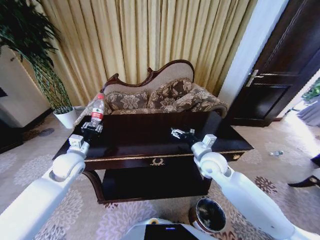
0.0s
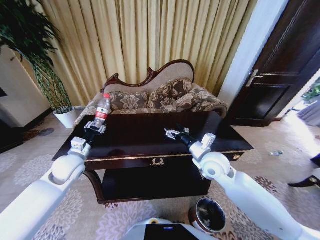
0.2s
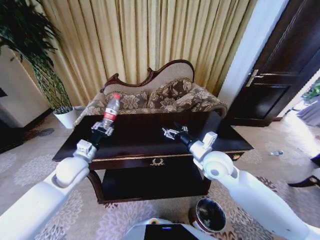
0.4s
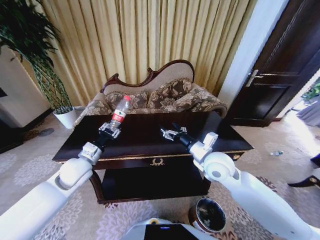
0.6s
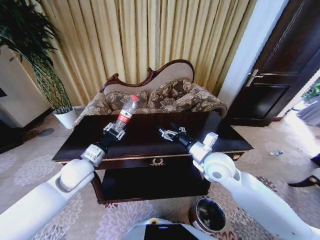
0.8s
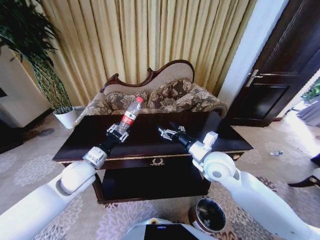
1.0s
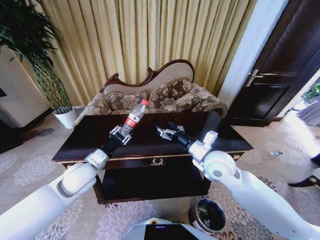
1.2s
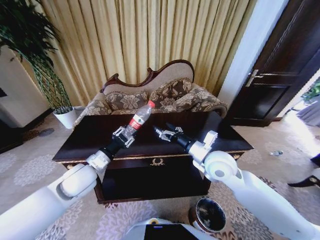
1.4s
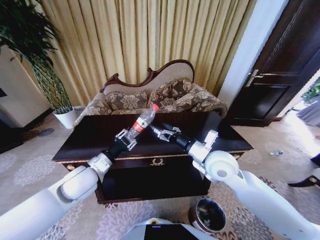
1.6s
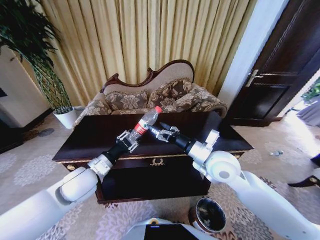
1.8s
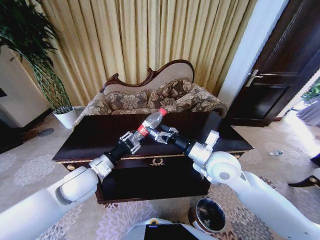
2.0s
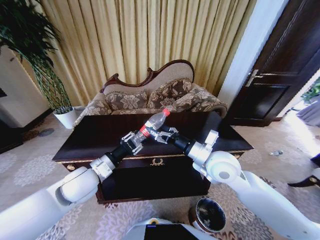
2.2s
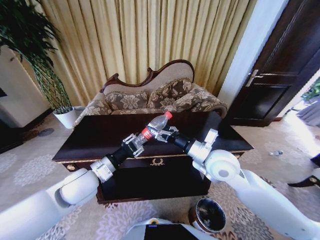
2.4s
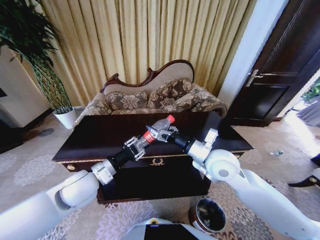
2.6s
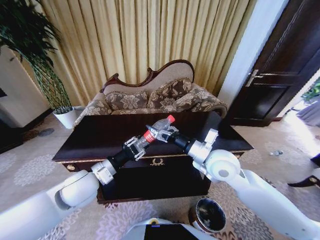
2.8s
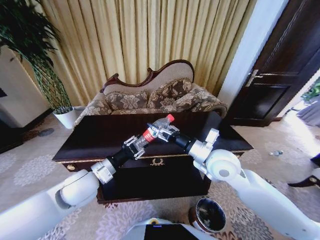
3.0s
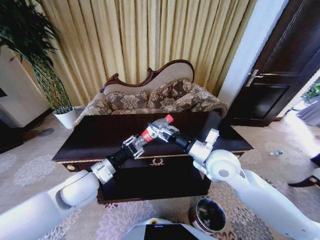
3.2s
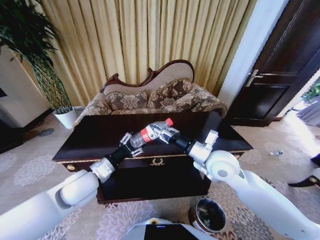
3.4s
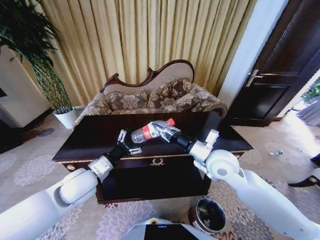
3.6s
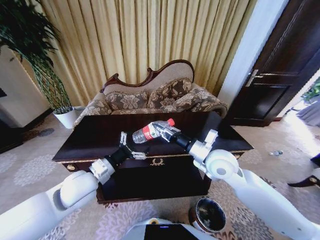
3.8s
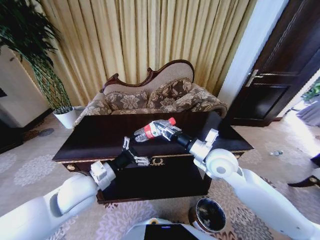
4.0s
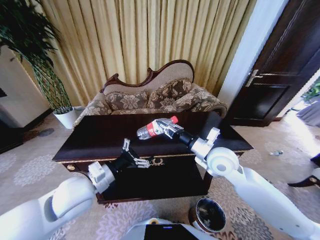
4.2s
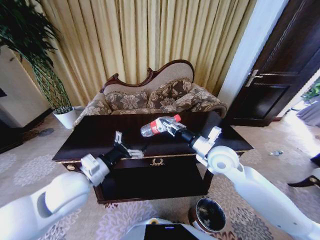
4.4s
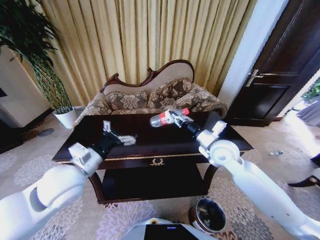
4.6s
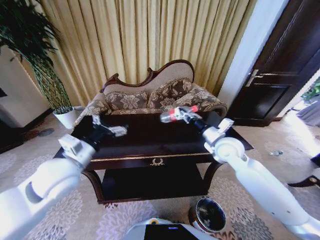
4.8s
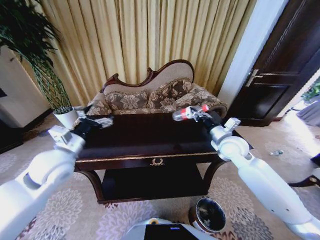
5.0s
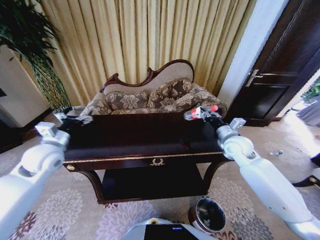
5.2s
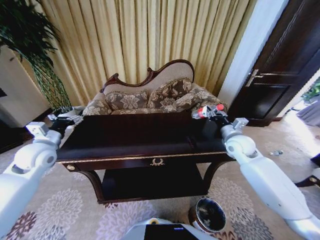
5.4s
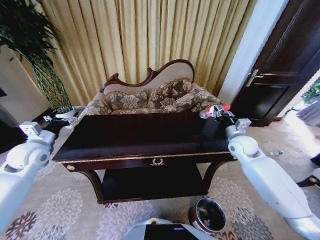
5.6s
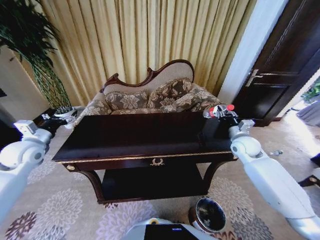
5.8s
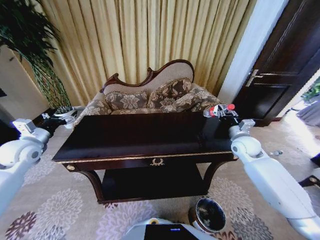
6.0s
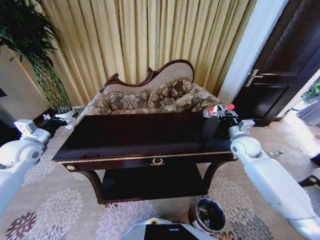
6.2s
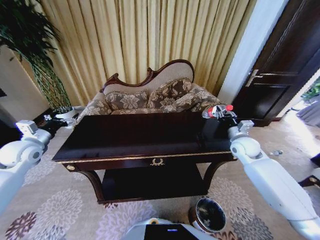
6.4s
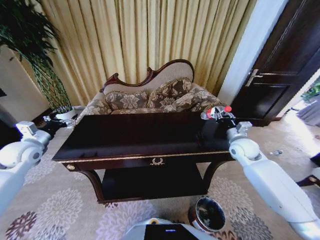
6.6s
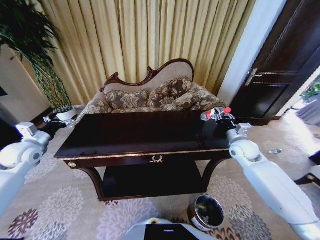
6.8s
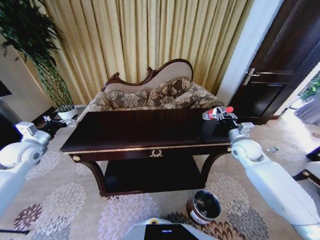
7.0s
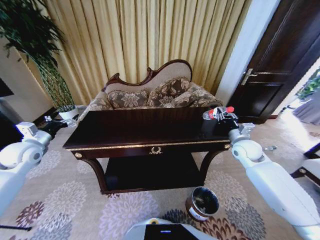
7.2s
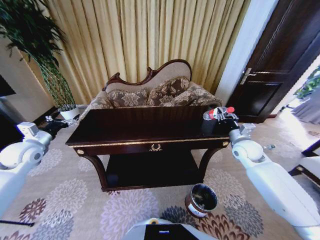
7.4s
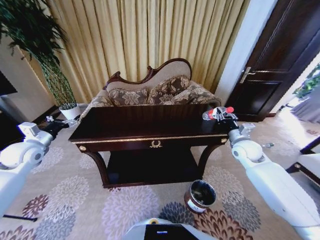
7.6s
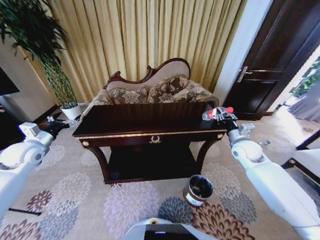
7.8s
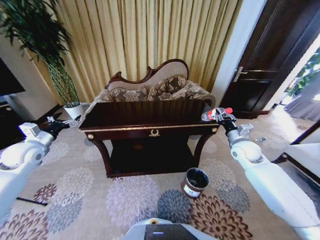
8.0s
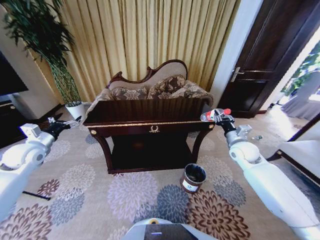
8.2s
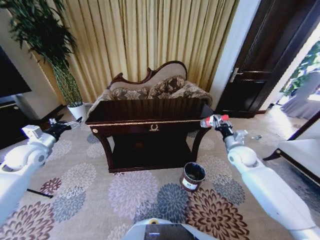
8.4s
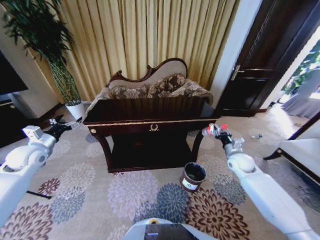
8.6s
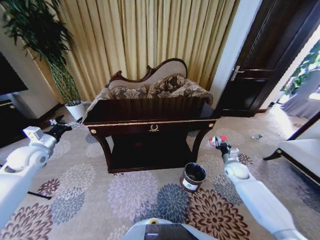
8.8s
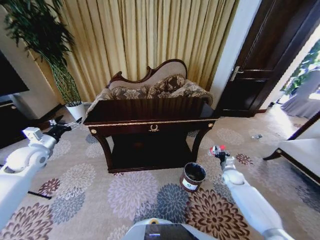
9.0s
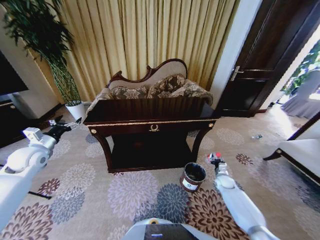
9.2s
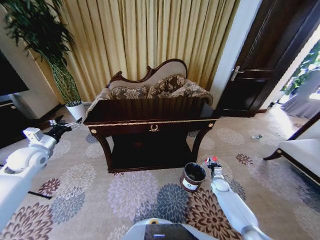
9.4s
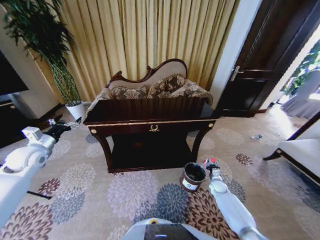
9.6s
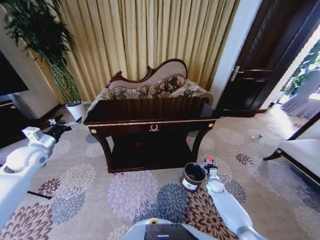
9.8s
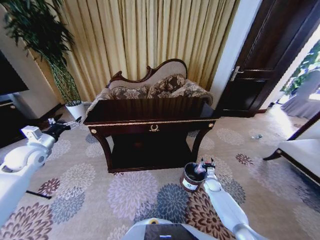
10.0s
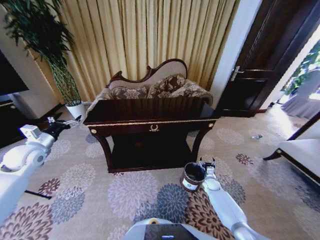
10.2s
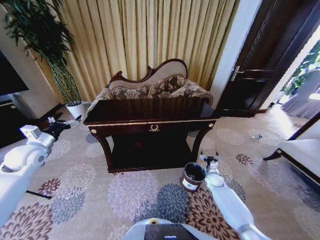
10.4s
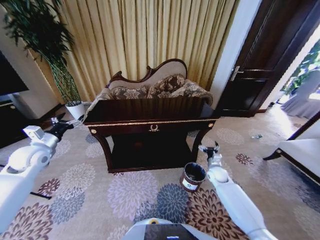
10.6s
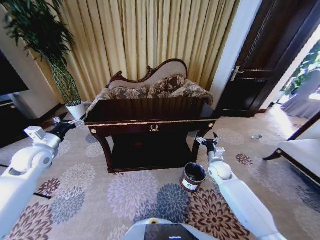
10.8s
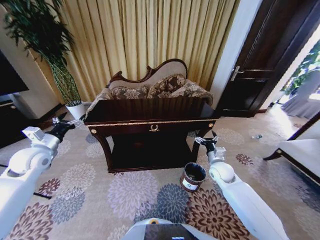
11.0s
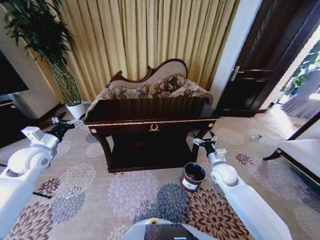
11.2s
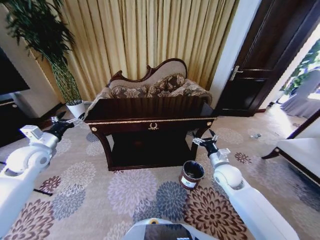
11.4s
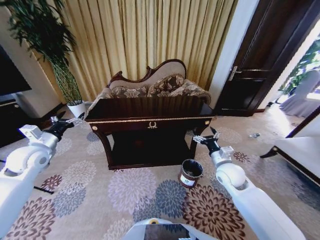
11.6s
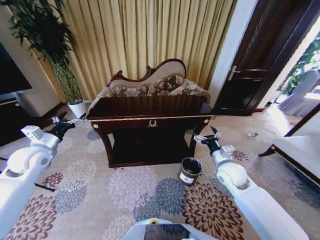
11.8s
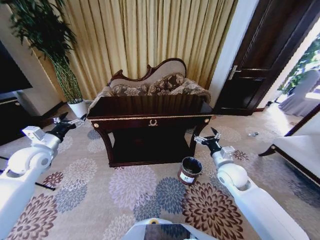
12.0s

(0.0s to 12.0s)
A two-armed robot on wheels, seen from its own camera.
Task of the whole recording: Move to the front of the table and place the trash on the table into the trash bin.
0.0s - 1.6s: The left gripper goes roughly 10 cm to the right and backward, while the right gripper is displaced upward by about 5 cm.
1.6s - 3.0s: The grippers stay close to where they were, moving slightly.
3.0s - 4.4s: The right gripper closes; the left gripper opens up.
4.4s - 6.0s: The left gripper moves to the left and forward, some 25 cm. Meanwhile the right gripper heads to the right and forward, covering approximately 20 cm.
7.6s - 9.0s: The right gripper goes about 25 cm downward.
9.0s - 10.4s: The right gripper moves to the left and downward, about 10 cm, and opens.
10.4s - 12.0s: The right gripper goes roughly 25 cm upward.

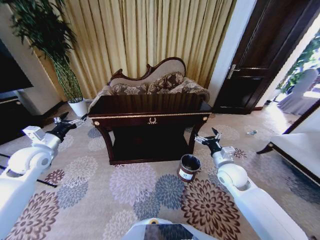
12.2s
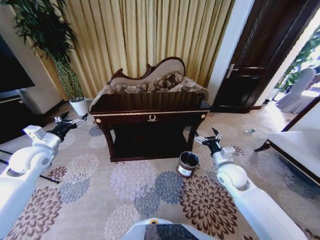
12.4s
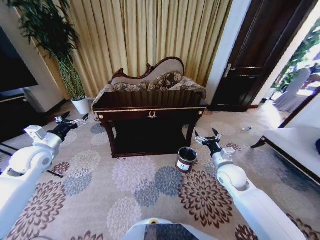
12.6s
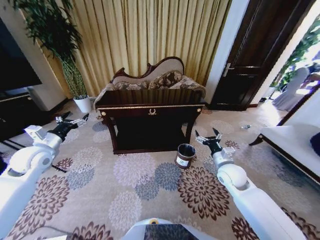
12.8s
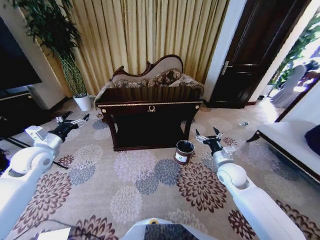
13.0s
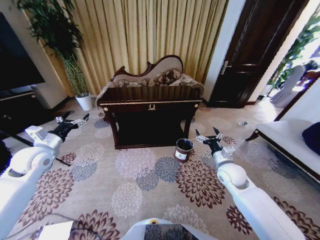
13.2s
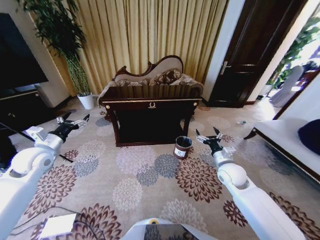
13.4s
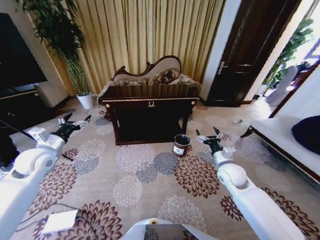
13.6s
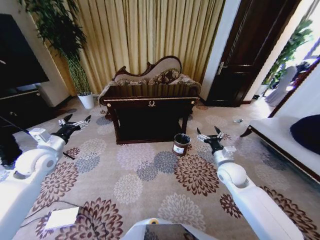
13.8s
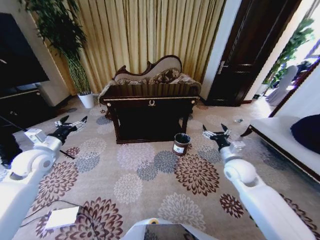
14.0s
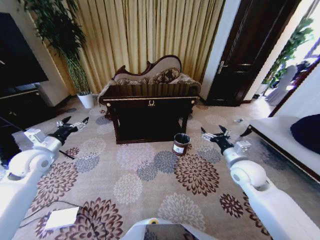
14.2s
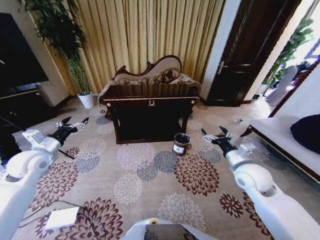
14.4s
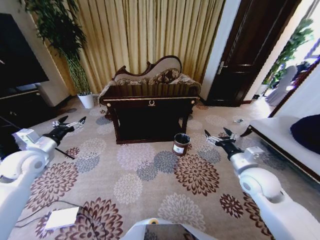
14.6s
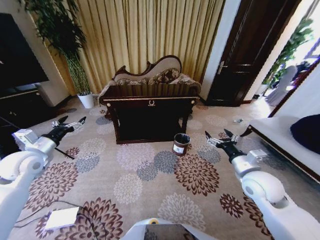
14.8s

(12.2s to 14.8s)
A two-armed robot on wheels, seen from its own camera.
Task of the whole recording: Move to the front of the table and place the trash on the table into the trash bin.
13.4s - 14.8s: The right gripper moves upward and backward, approximately 10 cm.
